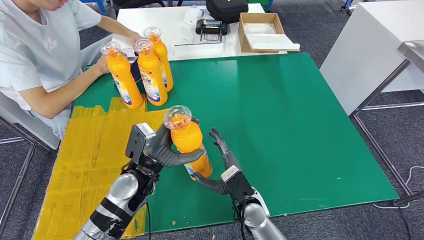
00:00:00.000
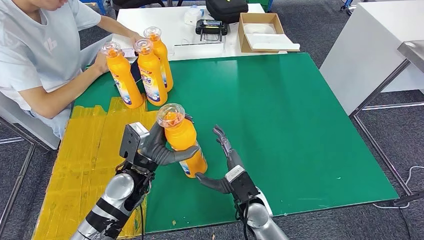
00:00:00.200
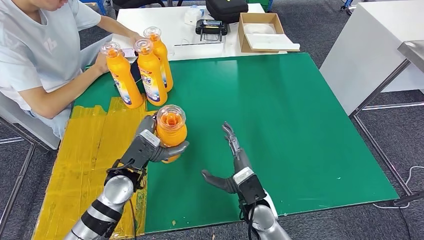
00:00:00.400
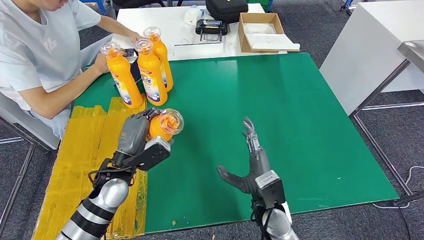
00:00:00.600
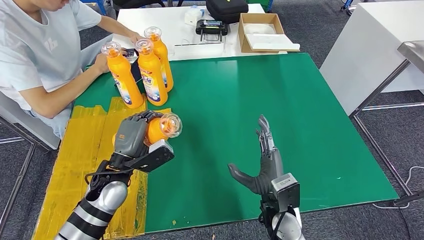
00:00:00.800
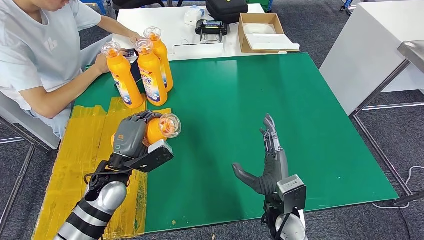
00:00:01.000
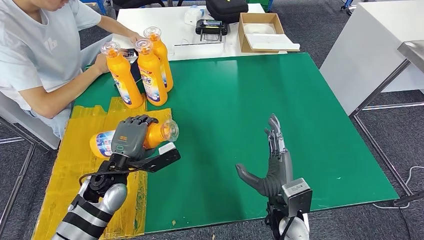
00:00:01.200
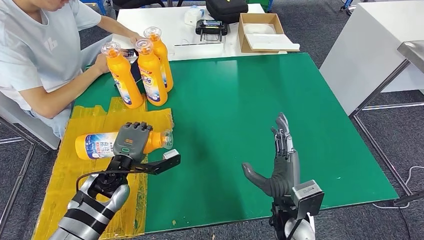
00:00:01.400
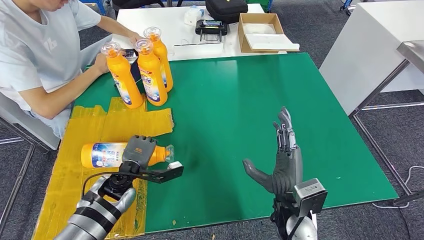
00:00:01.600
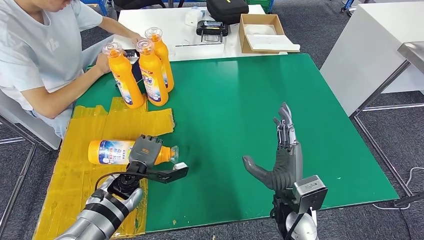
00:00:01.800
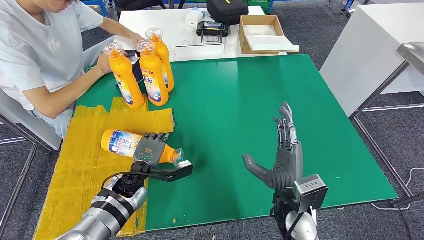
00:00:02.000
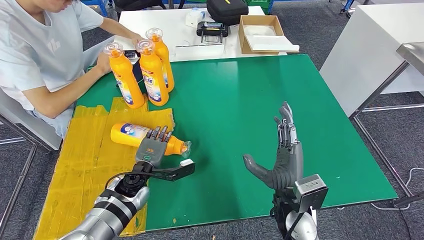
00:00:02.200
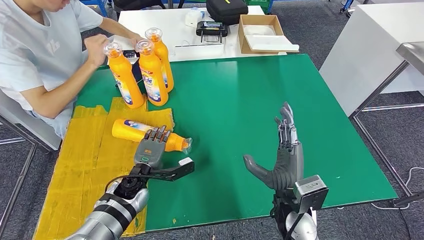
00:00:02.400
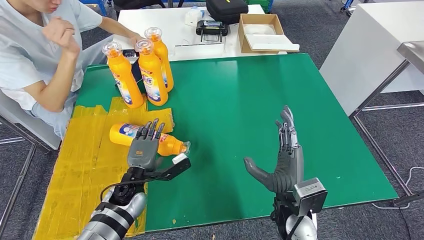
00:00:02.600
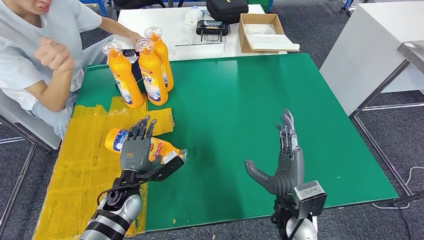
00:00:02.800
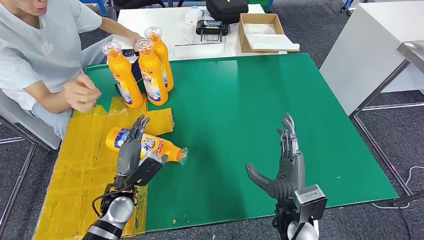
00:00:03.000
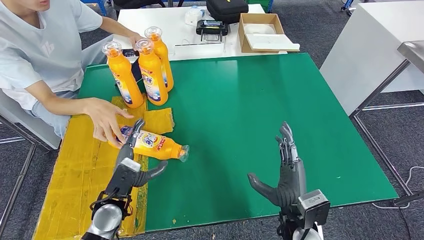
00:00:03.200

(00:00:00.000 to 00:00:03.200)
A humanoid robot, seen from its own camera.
Step, 00:00:00.000 - 00:00:03.200: Flip the fast-moving consumer goods bottle to the front side.
00:00:00.000 - 00:00:01.600: The left hand is displaced to the left and downward by roughly 10 cm, while the right hand heads to the right and upward, covering some 10 cm.
00:00:01.600 - 00:00:03.200: The left hand travels backward by roughly 5 cm.
